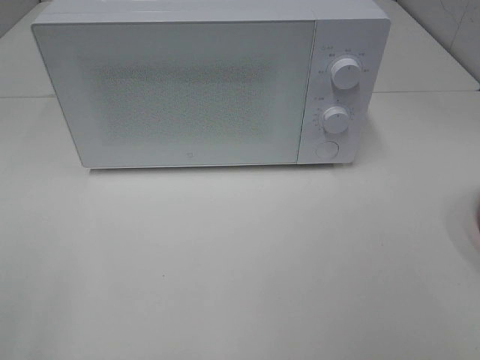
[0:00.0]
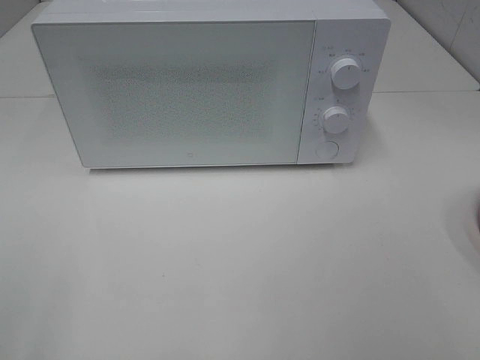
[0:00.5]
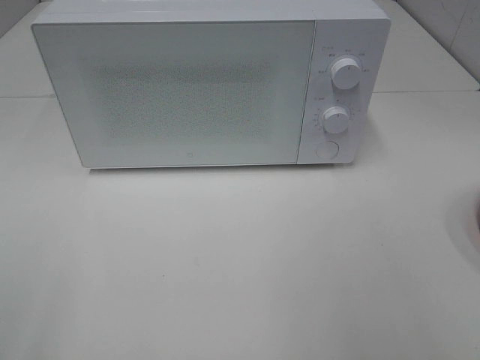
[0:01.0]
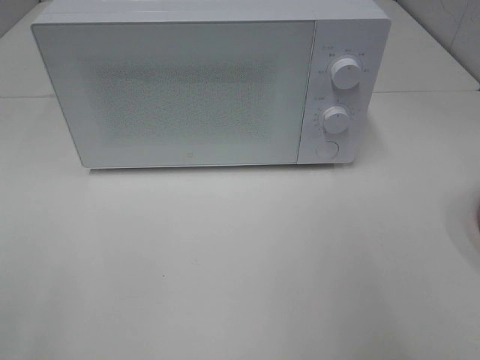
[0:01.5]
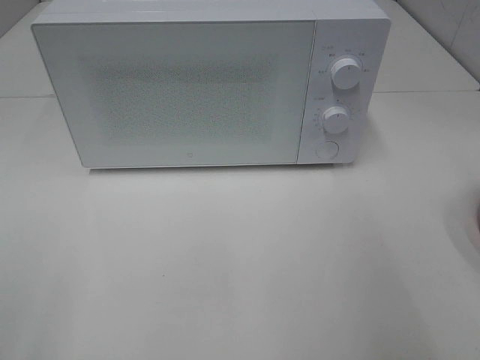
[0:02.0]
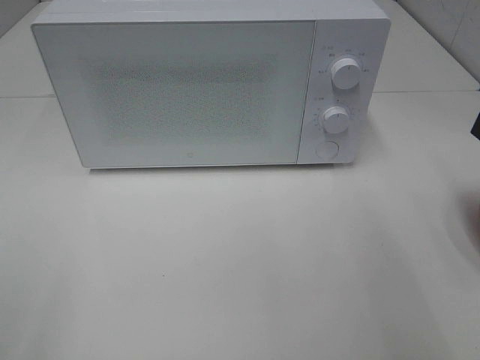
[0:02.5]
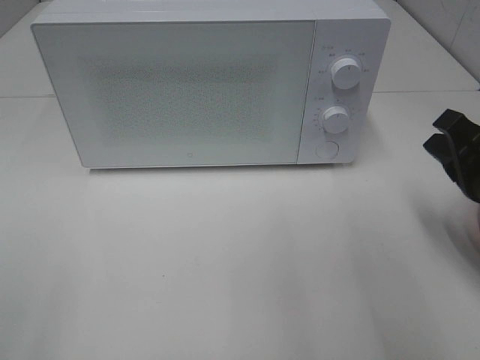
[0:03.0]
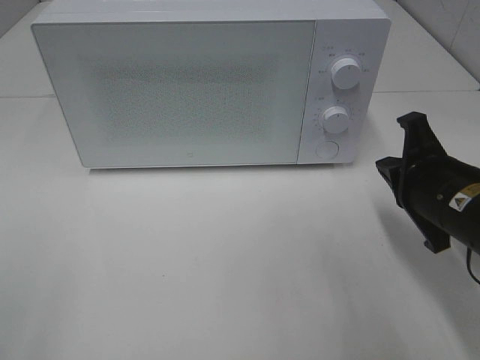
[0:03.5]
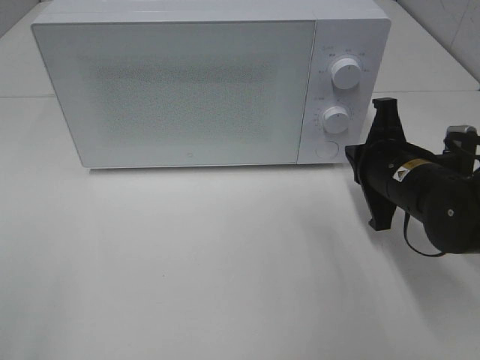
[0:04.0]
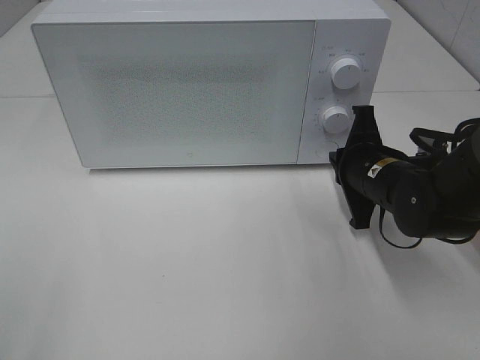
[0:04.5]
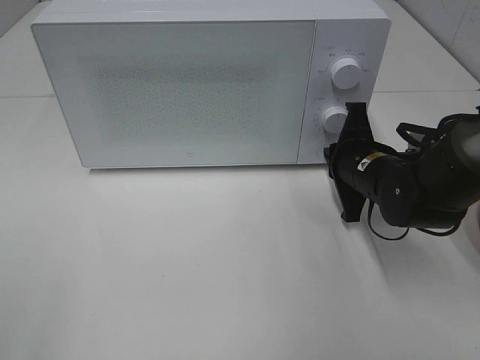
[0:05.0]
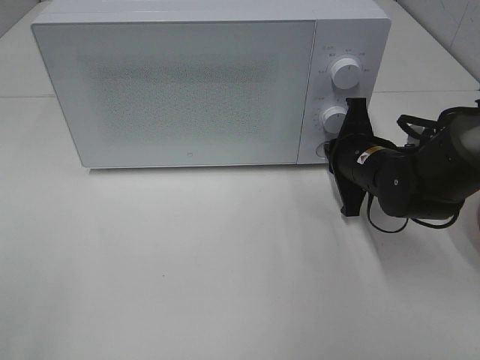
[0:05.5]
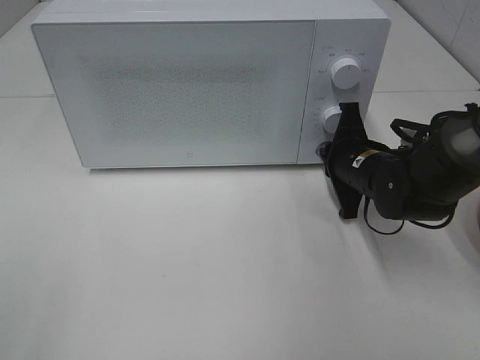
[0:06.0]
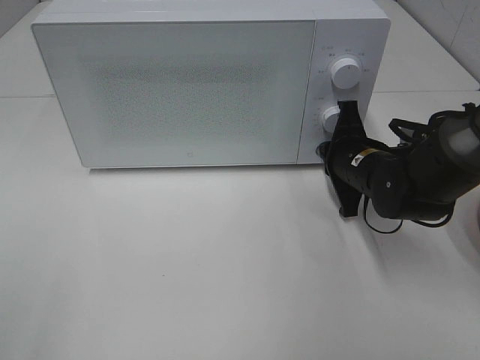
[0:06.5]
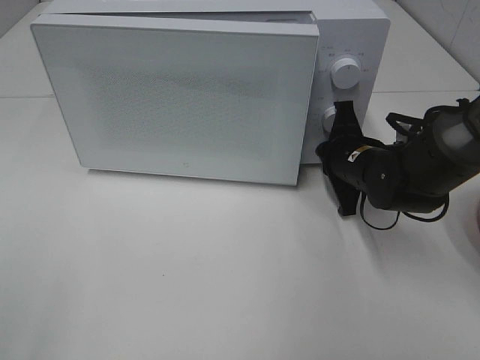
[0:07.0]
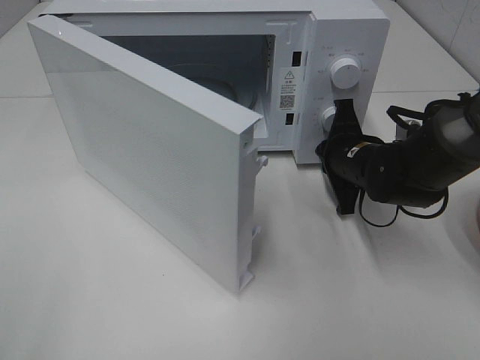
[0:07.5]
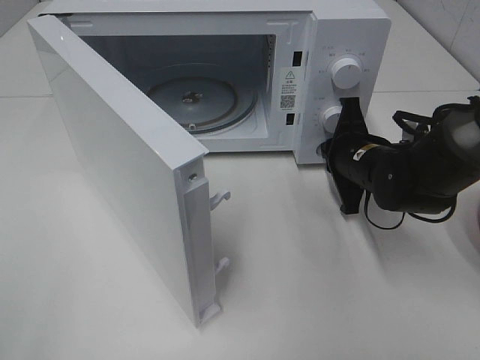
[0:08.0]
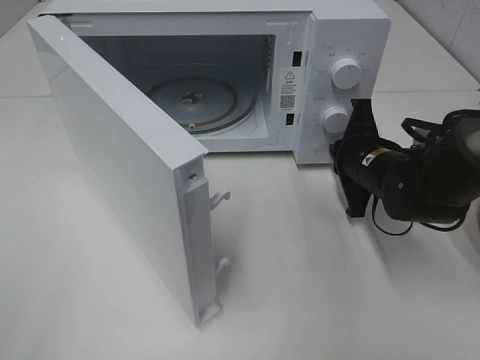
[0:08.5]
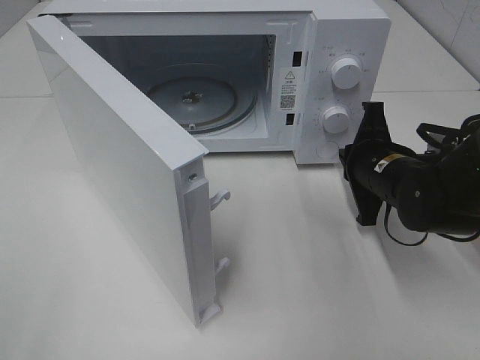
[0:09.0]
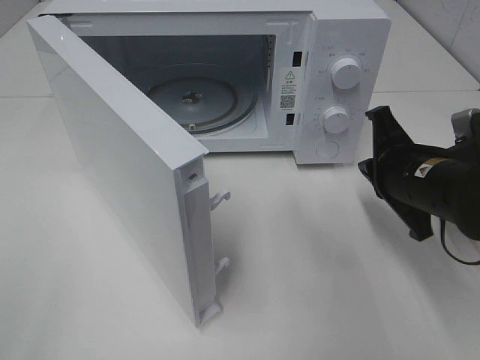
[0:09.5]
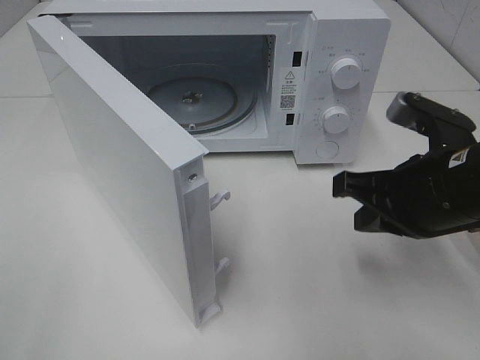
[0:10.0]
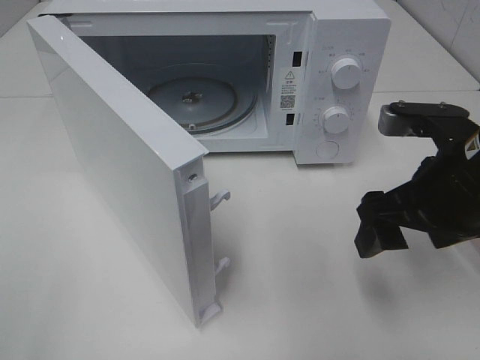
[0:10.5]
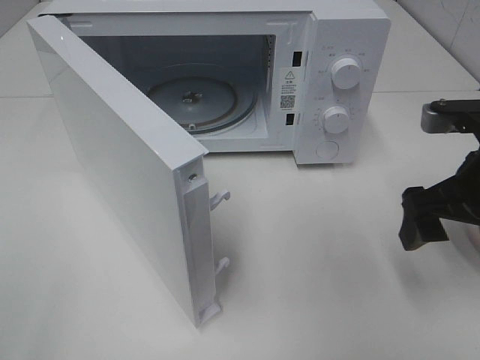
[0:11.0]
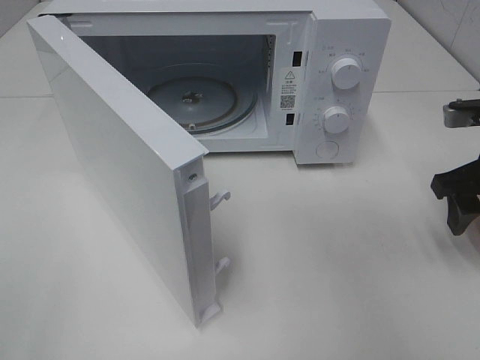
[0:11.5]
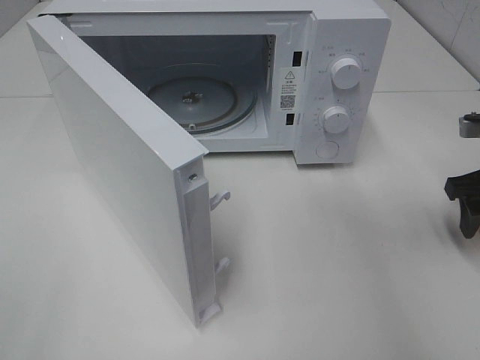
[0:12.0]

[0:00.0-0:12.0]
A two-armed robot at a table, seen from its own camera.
Task of the whole recording: Heat the burger.
Step, 0:00.0 to 0:08.0: Right hand: press the switch.
0:02.0 to 0:04.0: The right gripper travels downward, forward and to the left by about 25 cm.
0:04.0 to 0:06.0: The right gripper shifts roughly 5 cm forward.
0:08.0 to 0:10.0: The right gripper moves backward and upward, approximately 15 cm.
0:10.0 to 0:12.0: The right gripper travels to the right and forward by approximately 15 cm, and opens up.

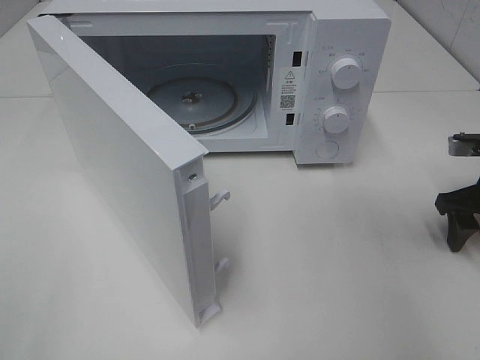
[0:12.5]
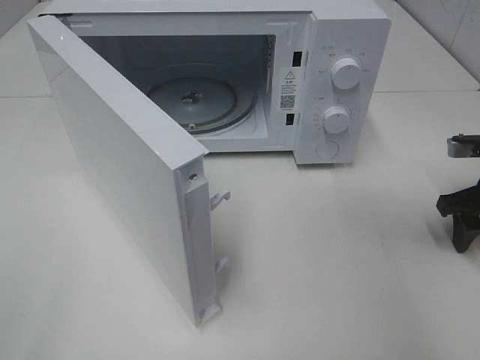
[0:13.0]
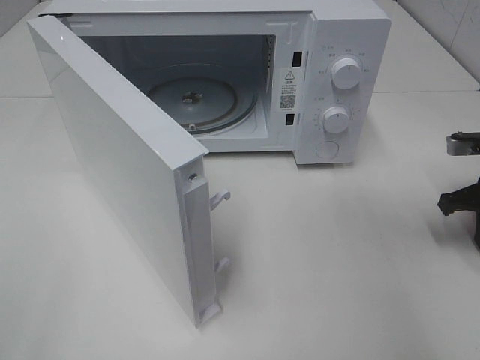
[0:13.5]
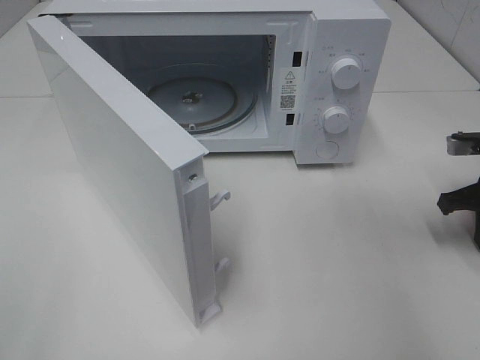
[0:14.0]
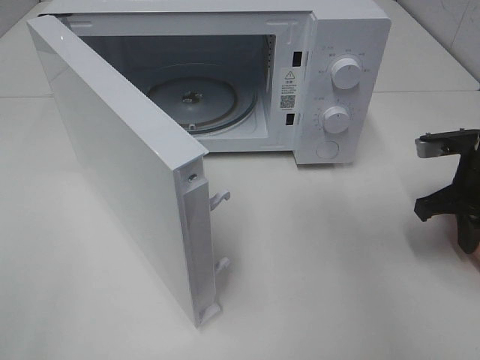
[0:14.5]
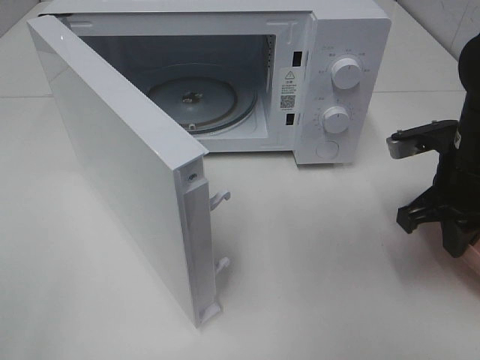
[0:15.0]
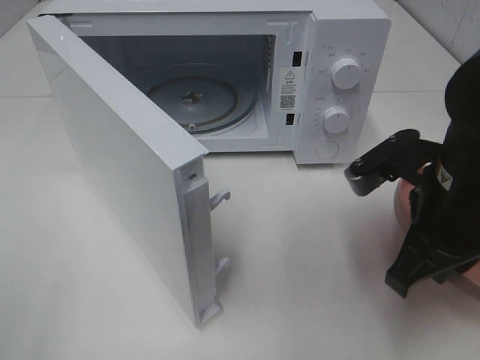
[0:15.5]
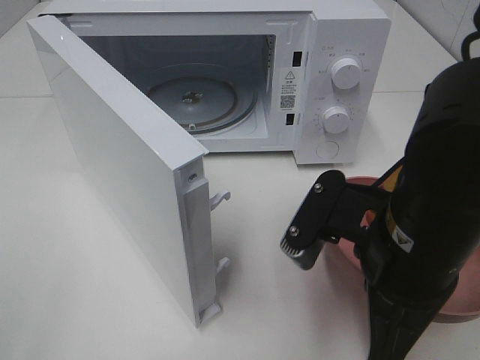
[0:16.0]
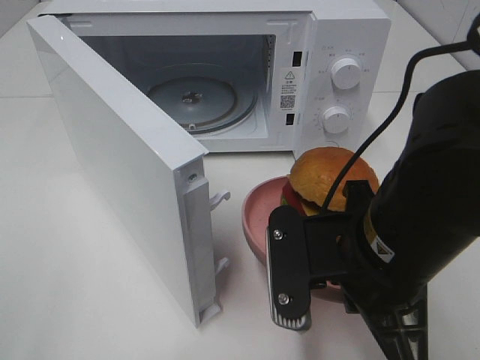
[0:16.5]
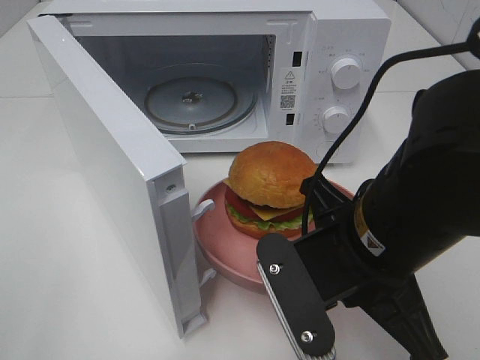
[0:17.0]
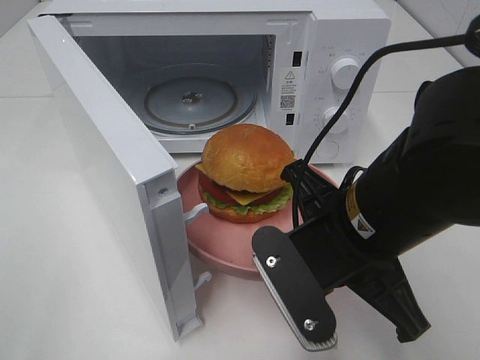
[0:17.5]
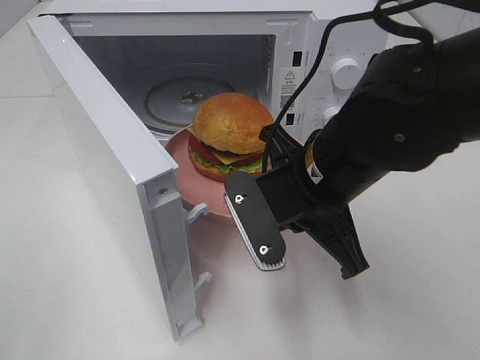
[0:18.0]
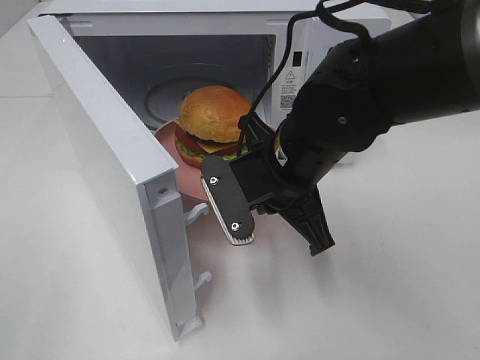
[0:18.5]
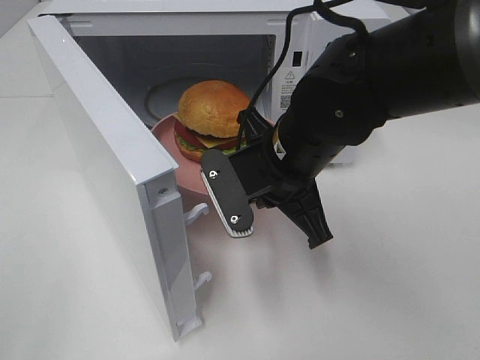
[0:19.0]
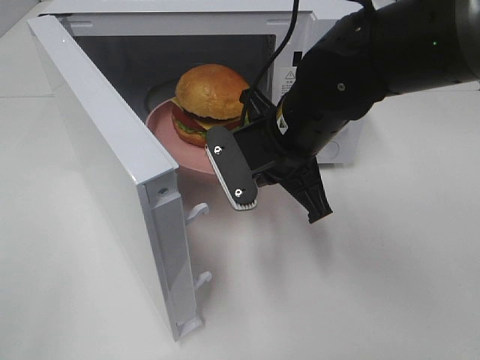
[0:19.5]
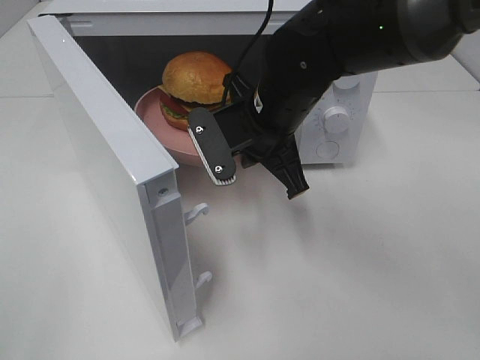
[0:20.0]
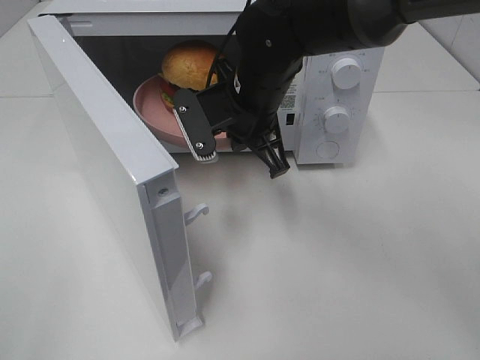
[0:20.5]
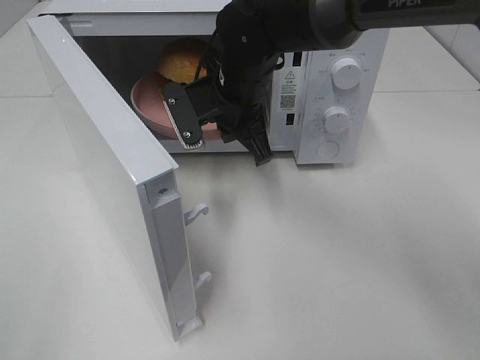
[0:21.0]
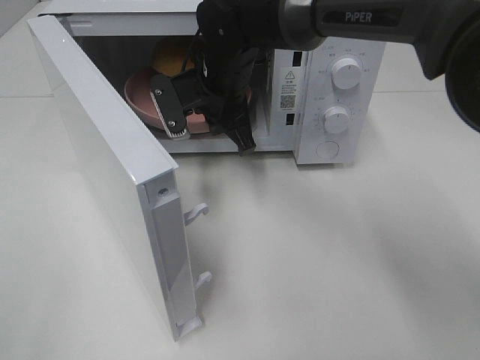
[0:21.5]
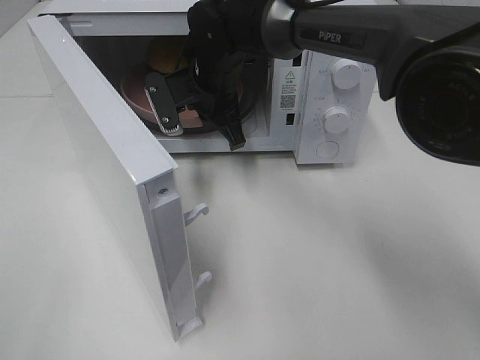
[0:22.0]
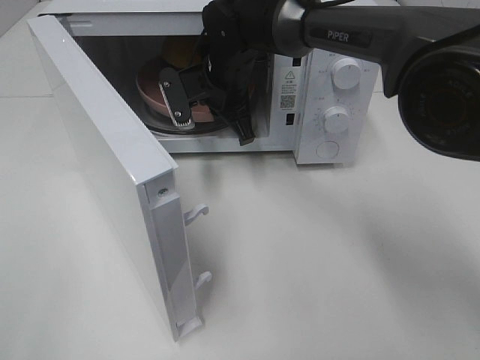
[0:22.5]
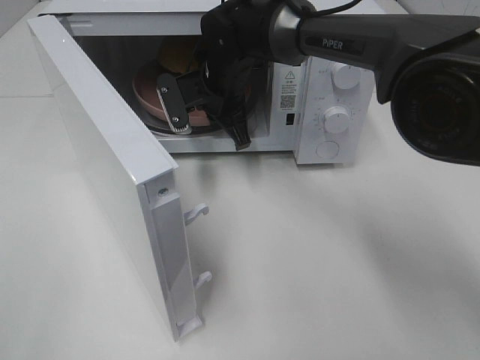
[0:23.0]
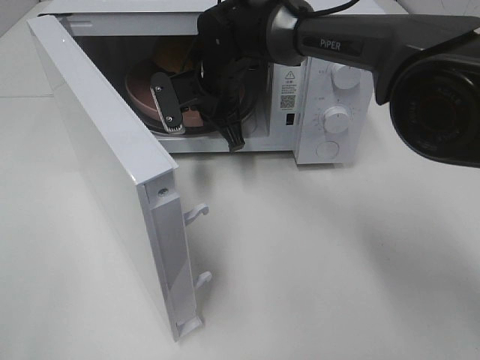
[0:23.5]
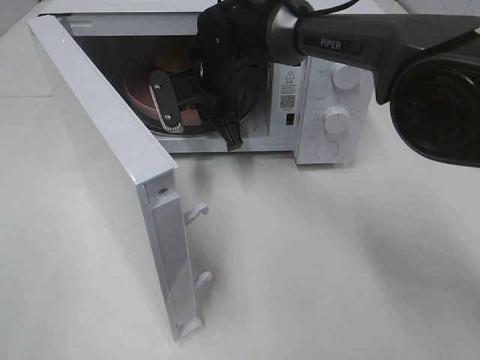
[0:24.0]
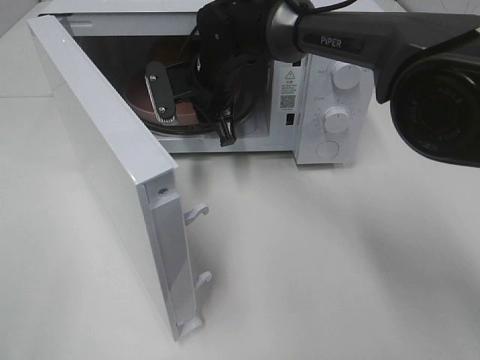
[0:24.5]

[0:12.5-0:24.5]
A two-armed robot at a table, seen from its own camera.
Task of the whole recording: Heat the burger.
Step, 0:13.5 to 0:24.0: Right hand: place the plate in the microwave.
0:12.5 to 0:14.5: The right gripper ends up approximately 5 cm from where it was, and closes its fingers.
0:14.5 to 0:16.5: The right gripper heads to the left and backward, covering roughly 25 cm.
0:16.5 to 0:18.5: The right gripper goes approximately 10 cm forward and to the left.
0:18.5 to 0:20.5: The right gripper heads forward, covering roughly 10 cm.
0:20.5 to 0:22.5: The right gripper moves forward, approximately 10 cm.
0:22.5 to 0:24.5: The right gripper opens.

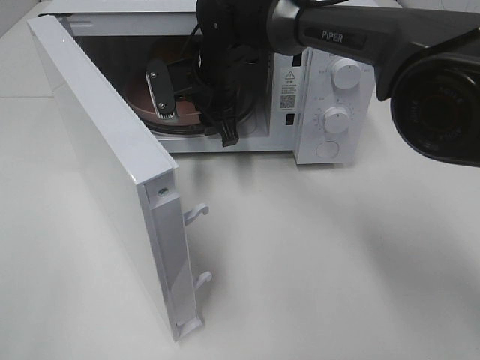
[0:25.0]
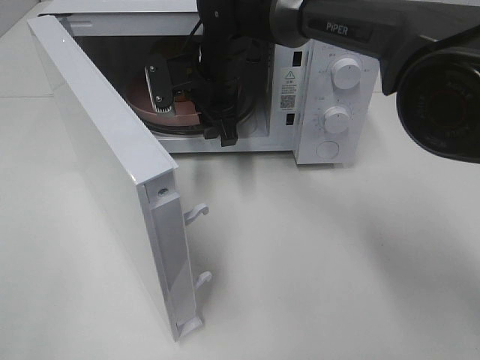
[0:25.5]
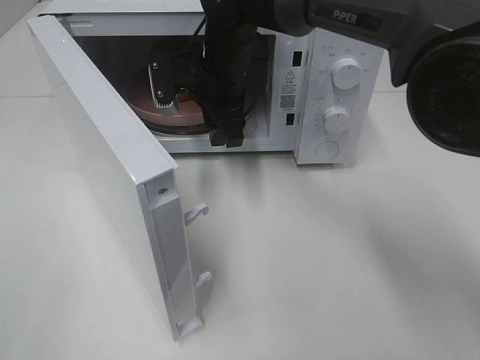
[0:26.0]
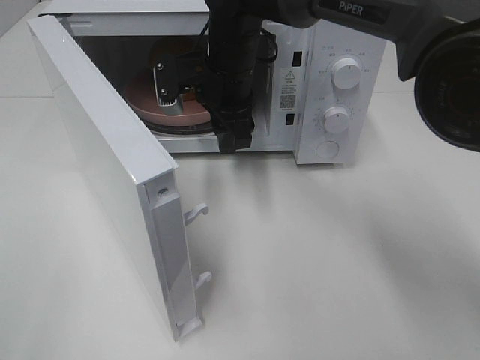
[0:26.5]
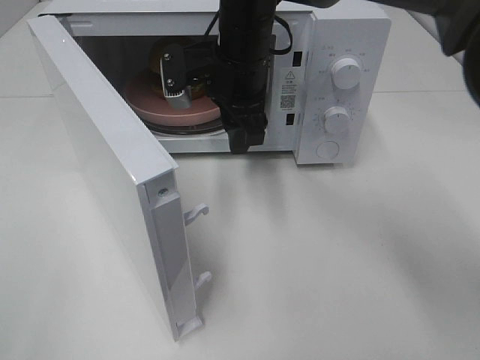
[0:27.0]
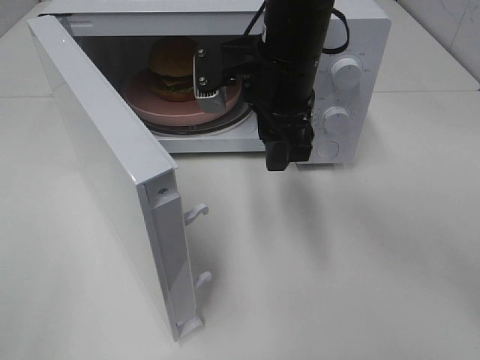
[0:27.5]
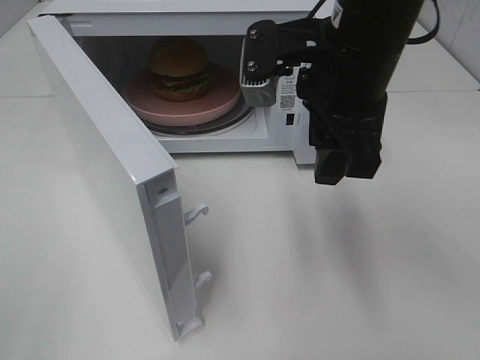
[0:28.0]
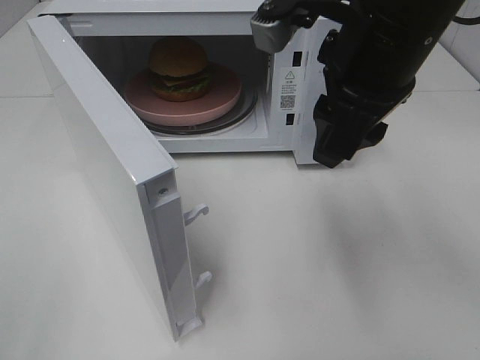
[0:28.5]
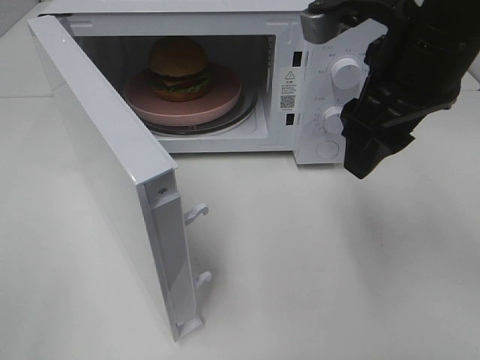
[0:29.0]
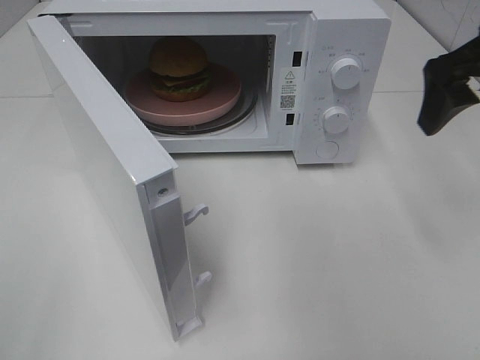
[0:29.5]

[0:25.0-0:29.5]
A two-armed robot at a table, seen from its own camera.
Task of the whole recording: Heat the burger.
0:25.0 to 0:27.0: The right gripper changes place by some 5 cm.
0:27.0 to 0:29.5: The right gripper goes approximately 25 cm to the right, and opens.
